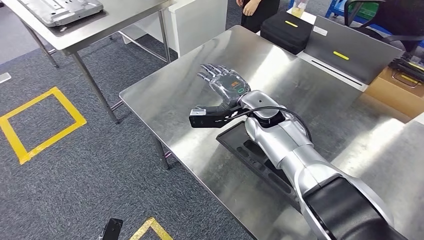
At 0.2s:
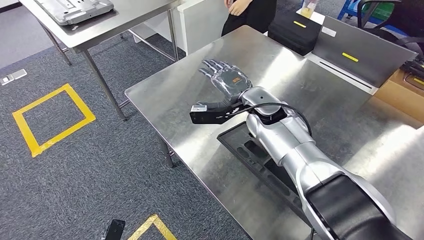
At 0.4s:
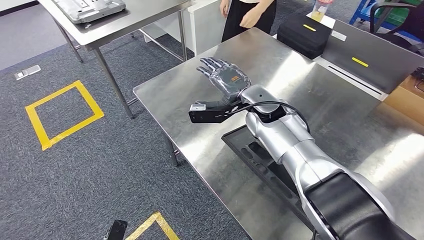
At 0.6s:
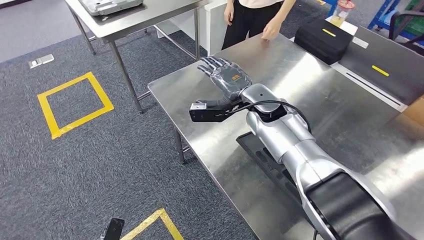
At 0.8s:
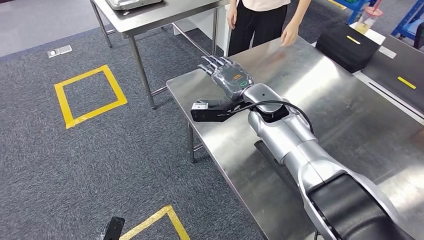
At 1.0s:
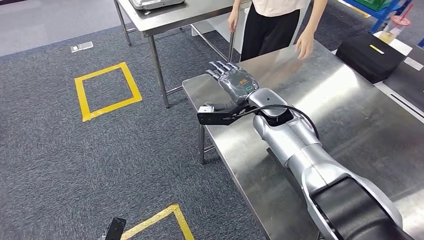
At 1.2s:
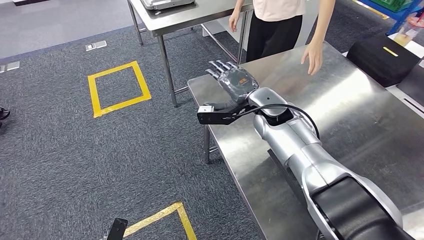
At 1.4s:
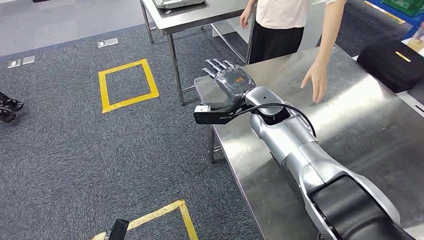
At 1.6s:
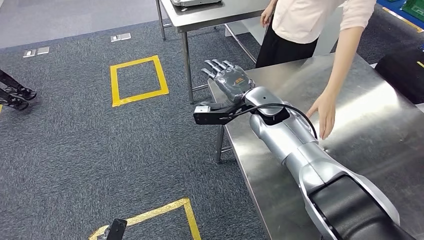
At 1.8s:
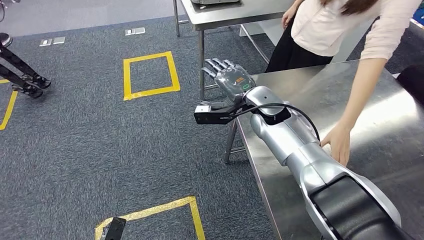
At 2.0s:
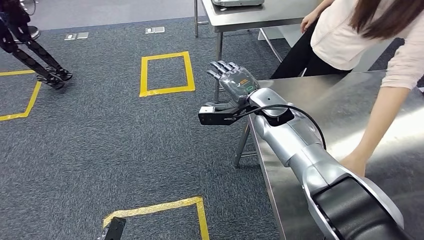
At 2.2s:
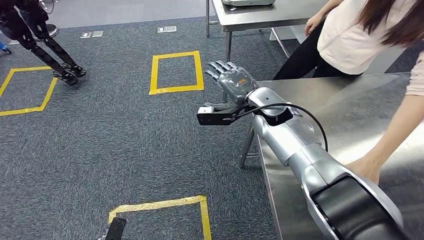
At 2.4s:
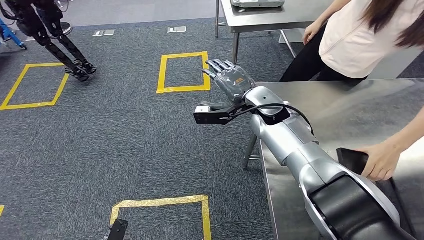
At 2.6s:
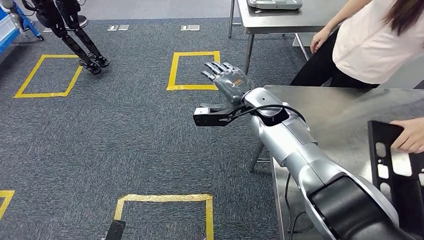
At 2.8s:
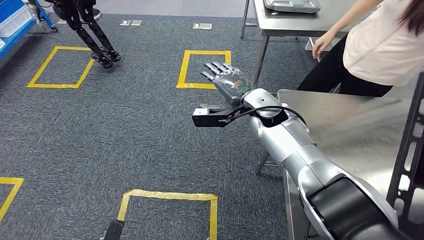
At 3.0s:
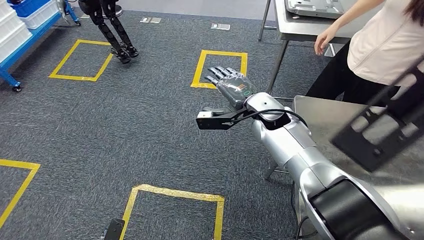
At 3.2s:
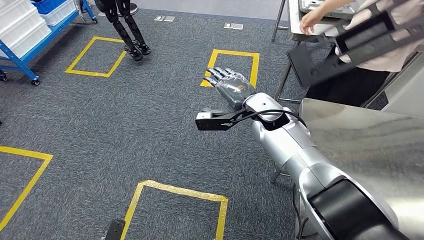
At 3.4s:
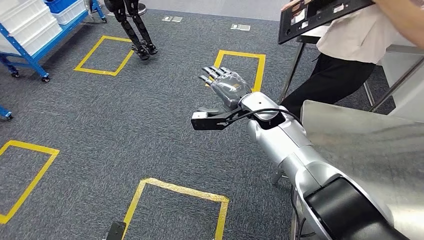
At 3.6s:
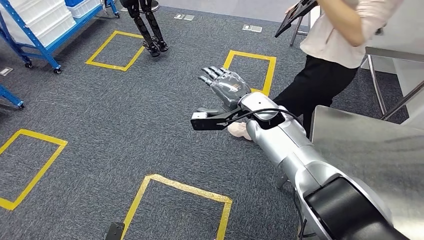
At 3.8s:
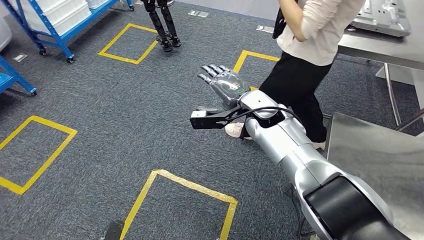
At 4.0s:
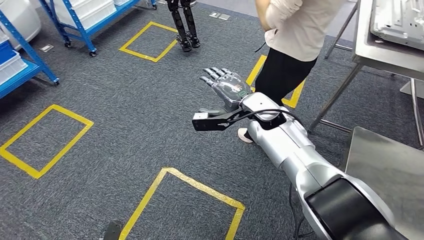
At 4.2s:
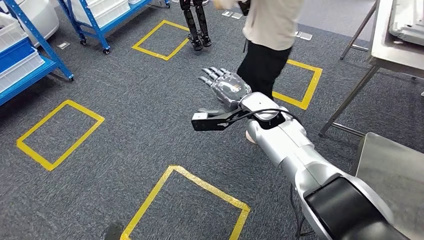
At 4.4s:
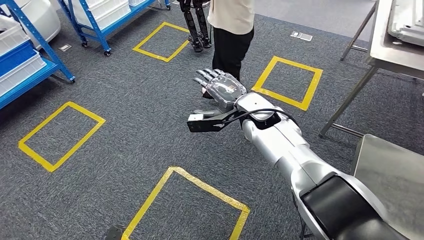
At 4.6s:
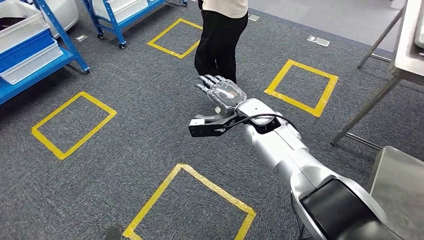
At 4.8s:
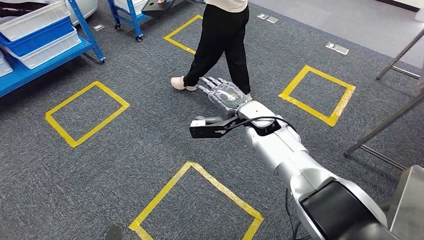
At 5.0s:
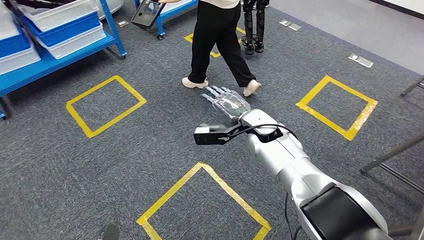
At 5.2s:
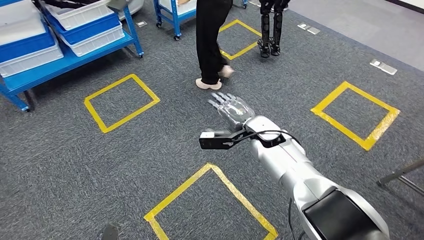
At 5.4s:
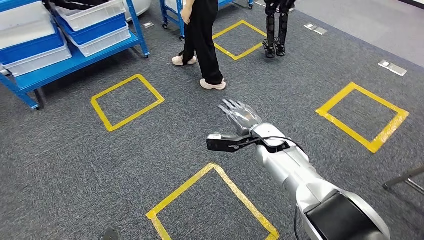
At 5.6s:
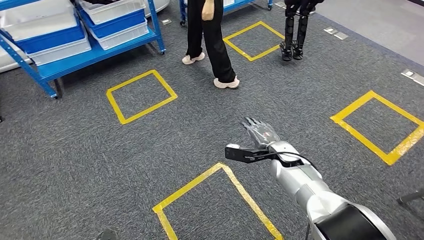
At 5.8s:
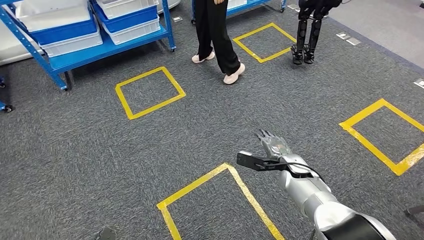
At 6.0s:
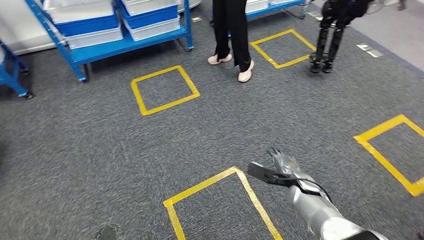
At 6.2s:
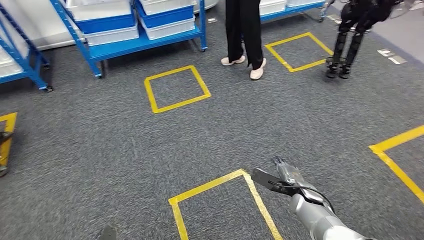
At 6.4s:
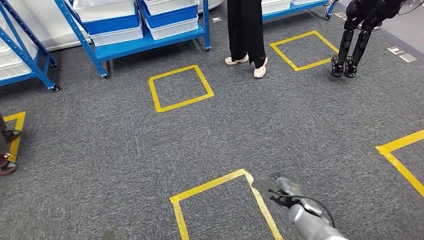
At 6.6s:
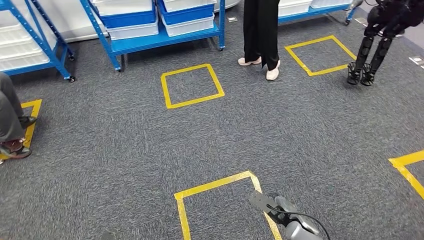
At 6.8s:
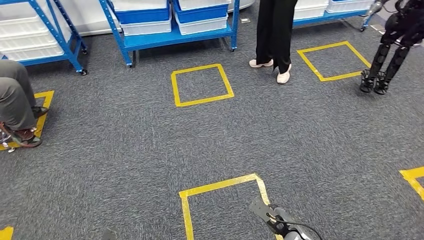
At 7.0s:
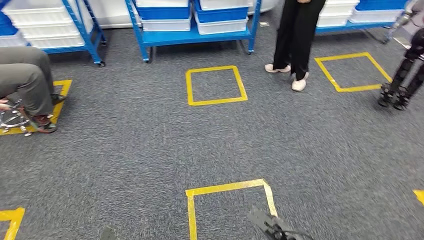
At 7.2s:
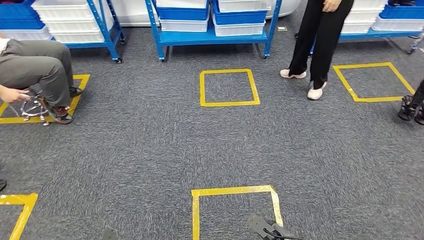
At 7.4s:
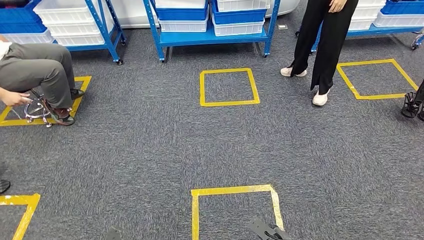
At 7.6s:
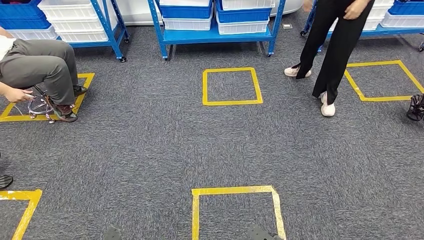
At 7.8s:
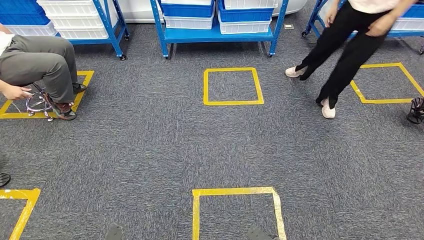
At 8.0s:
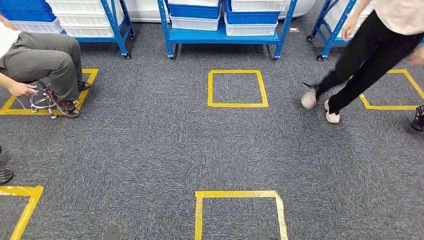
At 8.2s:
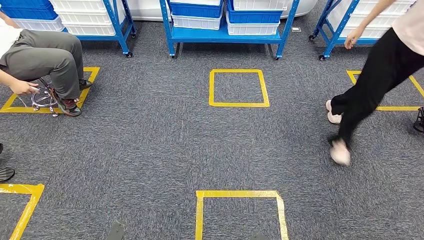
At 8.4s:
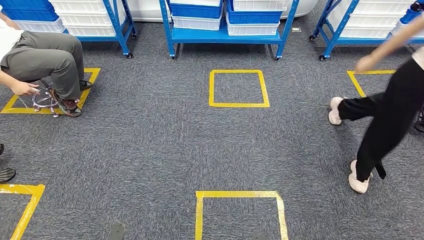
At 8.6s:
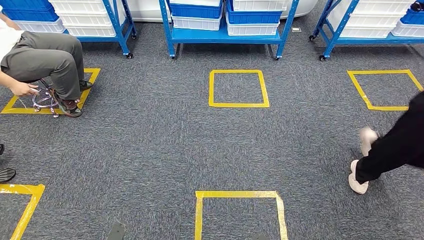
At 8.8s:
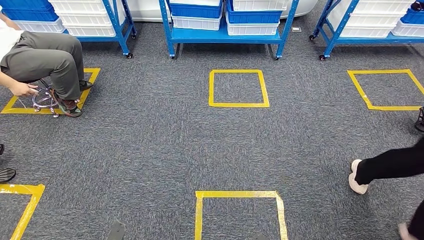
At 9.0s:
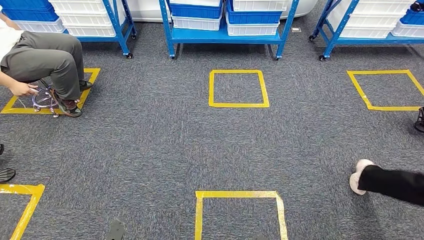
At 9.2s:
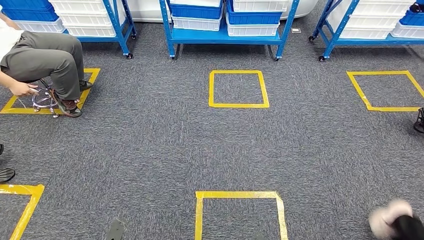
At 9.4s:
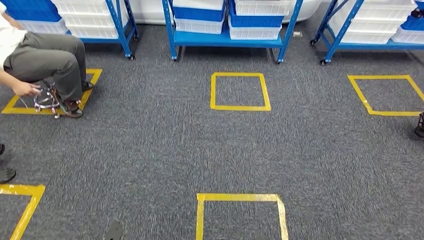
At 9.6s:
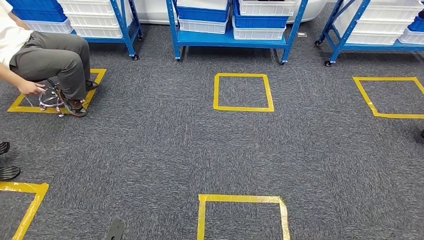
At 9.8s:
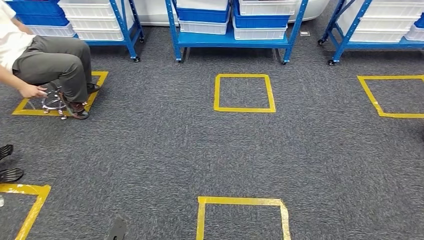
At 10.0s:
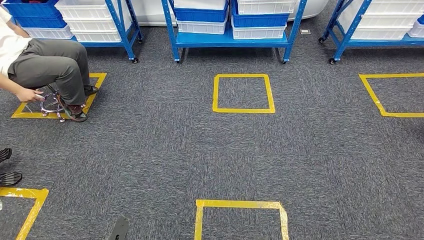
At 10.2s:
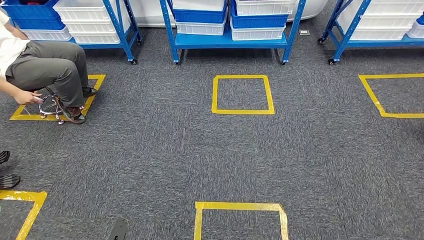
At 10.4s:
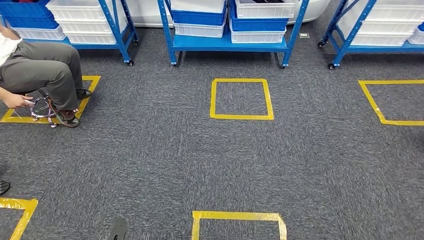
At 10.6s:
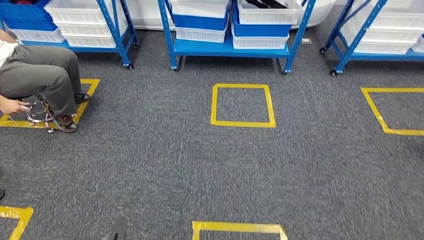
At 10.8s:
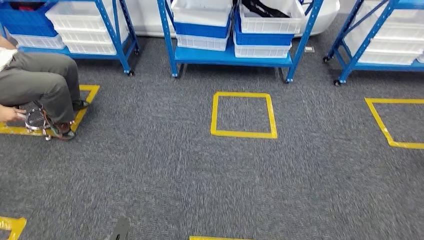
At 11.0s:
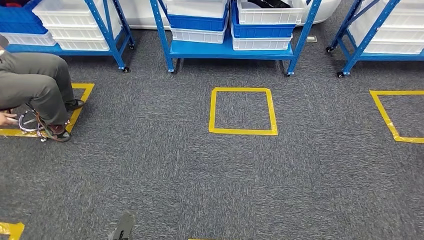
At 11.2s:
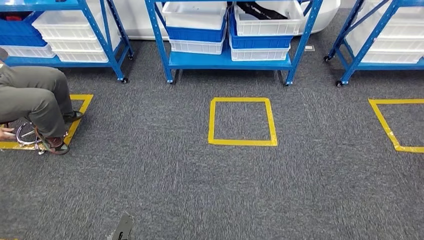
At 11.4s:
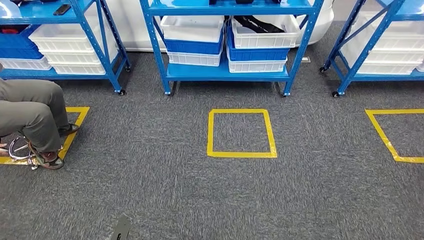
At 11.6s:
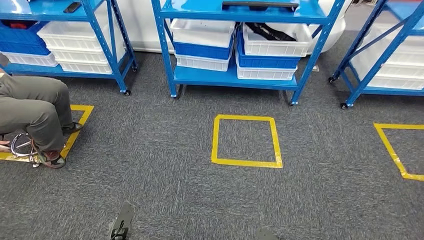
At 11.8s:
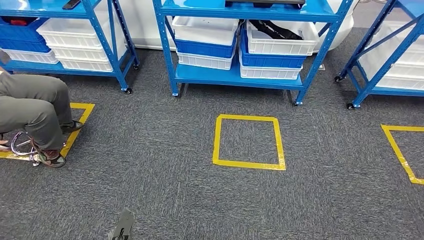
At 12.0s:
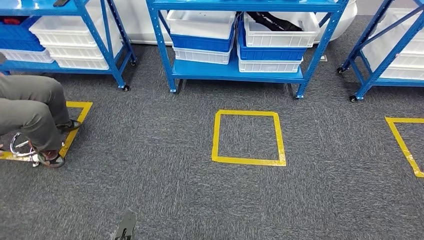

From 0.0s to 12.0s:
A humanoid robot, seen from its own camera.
Step, from 0.0s to 3.2s: Insert the large material into the corresponding hole on the workbench.

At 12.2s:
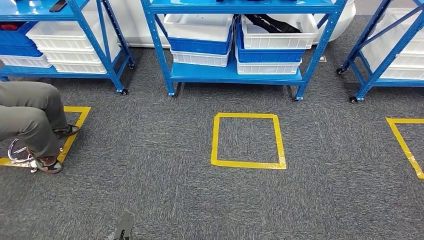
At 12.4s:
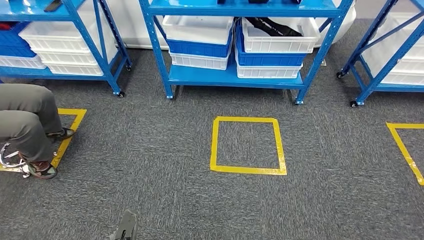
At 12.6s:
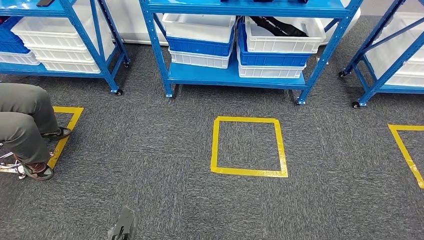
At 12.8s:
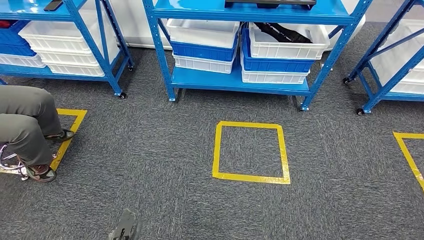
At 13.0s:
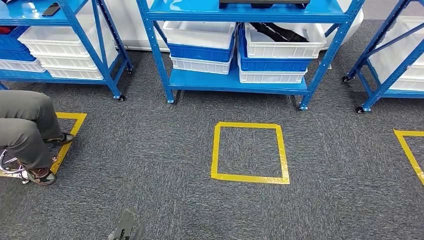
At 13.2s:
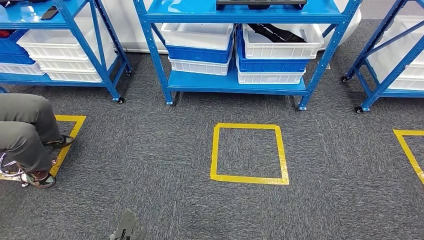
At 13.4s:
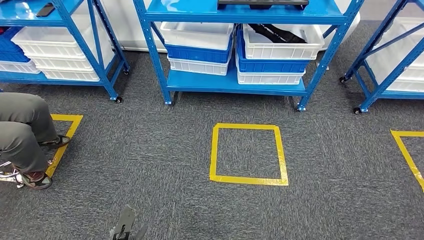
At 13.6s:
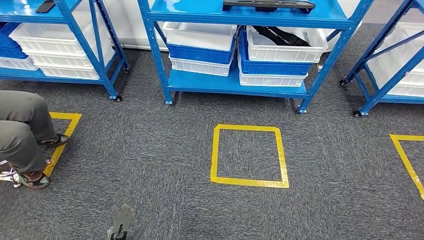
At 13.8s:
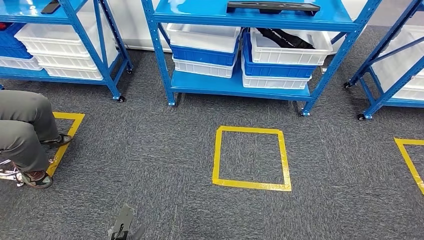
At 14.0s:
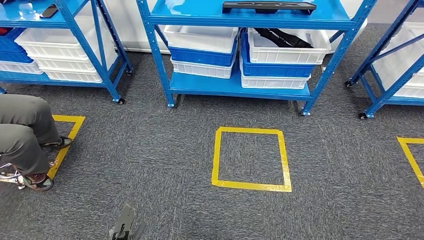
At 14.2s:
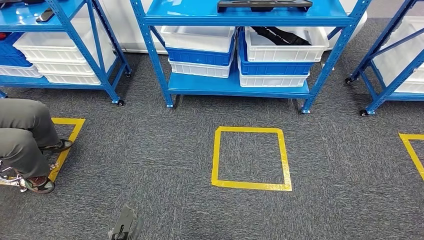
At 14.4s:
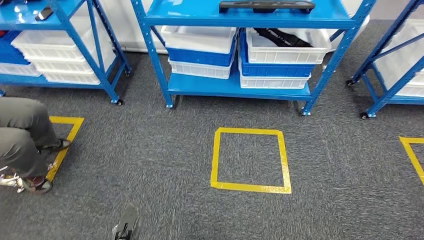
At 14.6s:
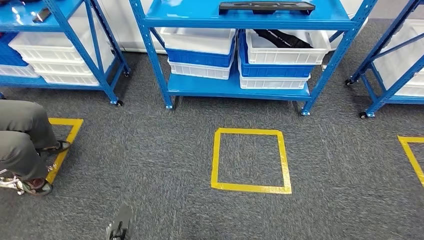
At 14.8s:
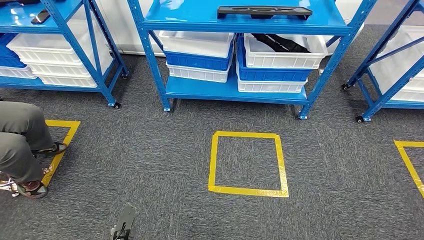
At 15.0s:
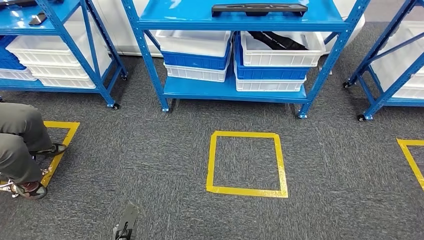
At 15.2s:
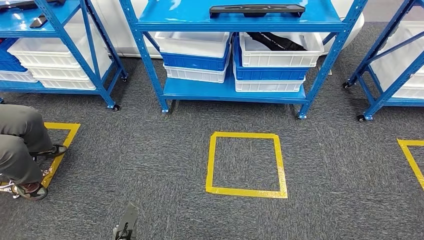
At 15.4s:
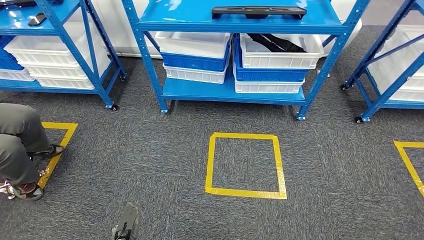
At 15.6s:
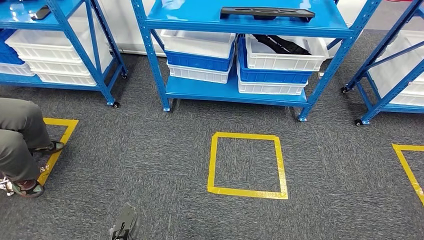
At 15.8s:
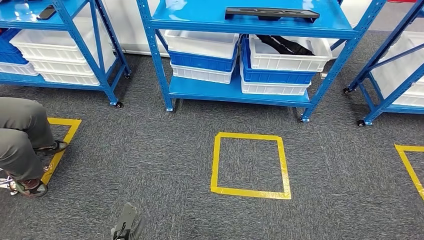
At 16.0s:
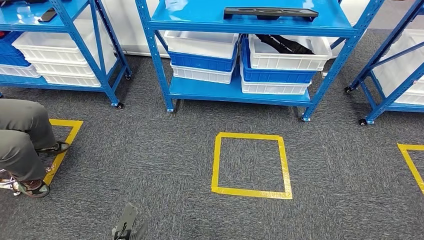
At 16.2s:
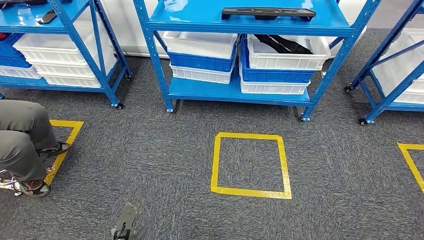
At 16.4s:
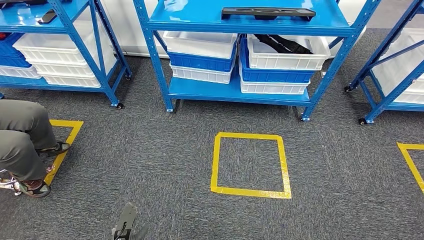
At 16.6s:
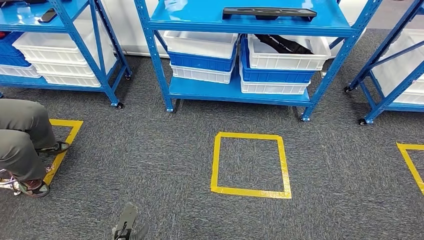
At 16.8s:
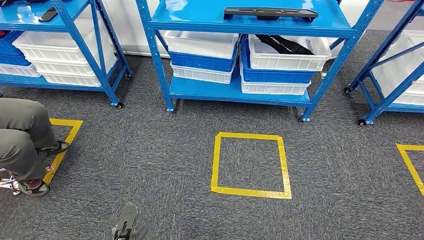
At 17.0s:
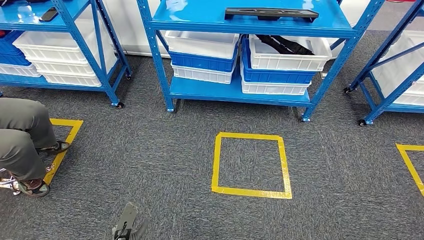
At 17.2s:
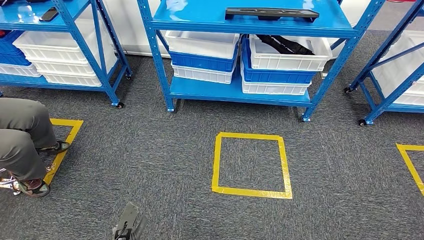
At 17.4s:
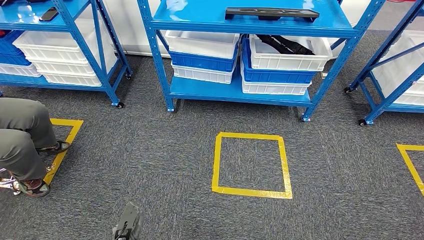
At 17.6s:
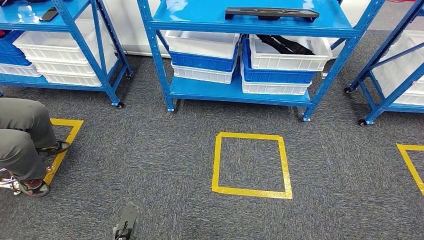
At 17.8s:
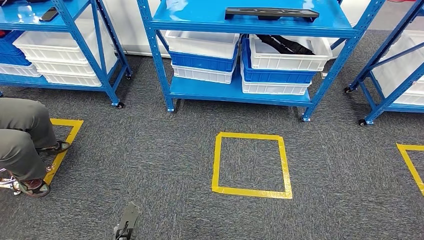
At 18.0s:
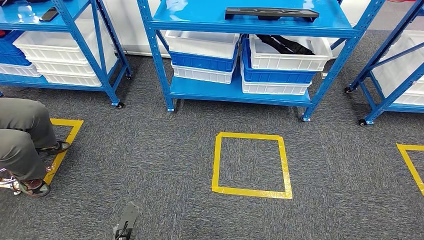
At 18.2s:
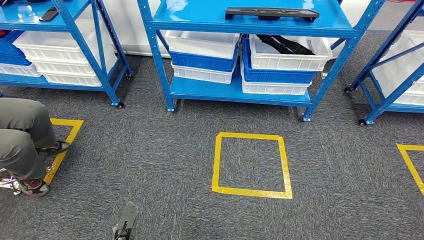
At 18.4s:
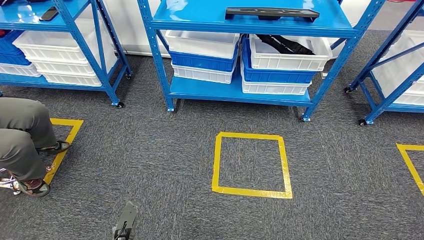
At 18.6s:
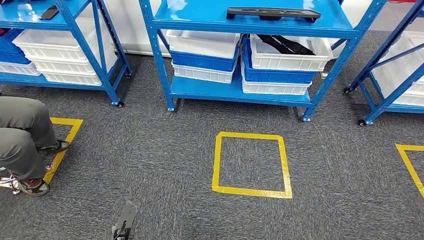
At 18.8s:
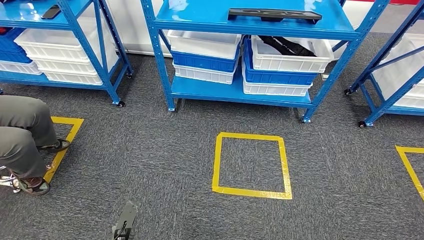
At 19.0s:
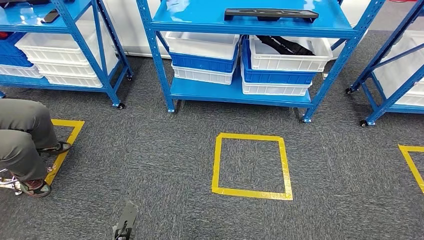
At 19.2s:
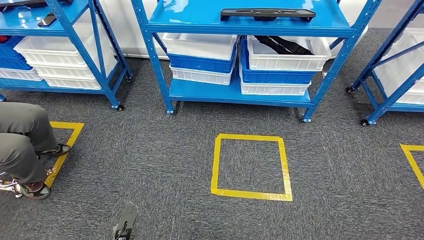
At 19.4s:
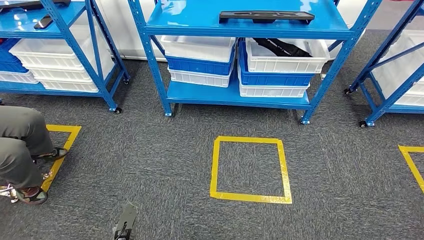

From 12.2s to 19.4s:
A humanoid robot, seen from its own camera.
From 16.6s to 18.0s: Neither hand changes place.
